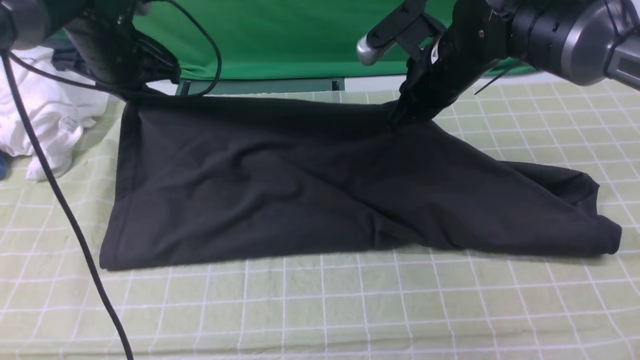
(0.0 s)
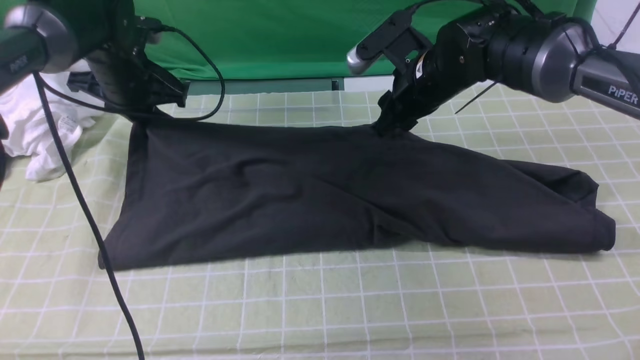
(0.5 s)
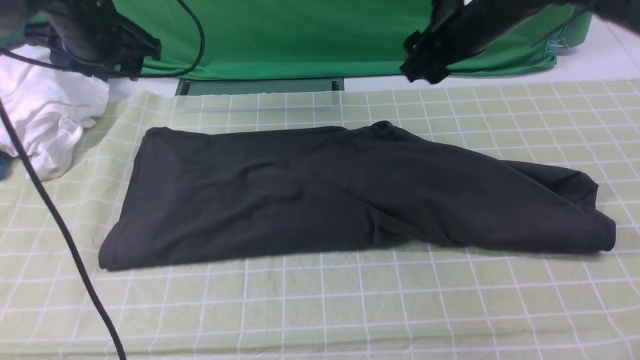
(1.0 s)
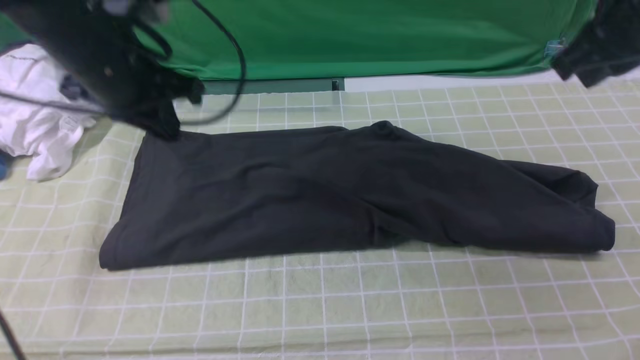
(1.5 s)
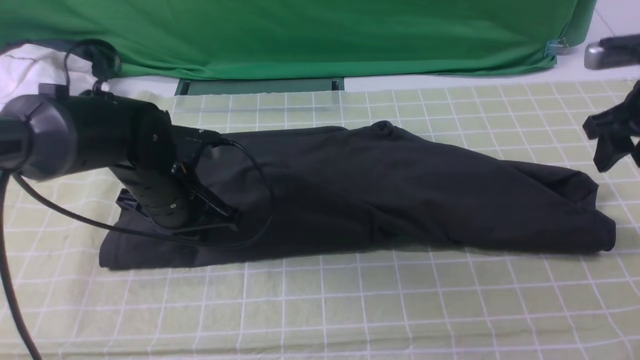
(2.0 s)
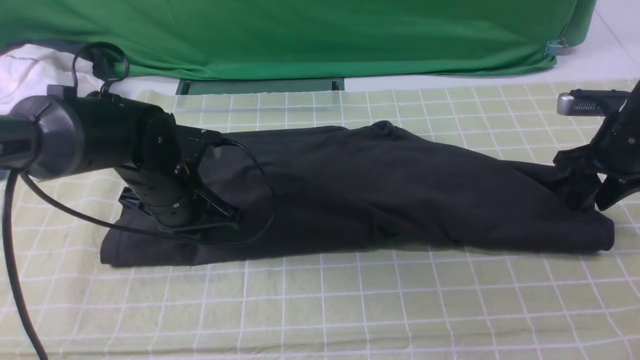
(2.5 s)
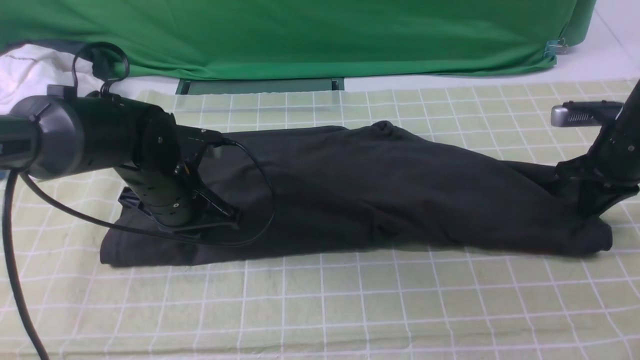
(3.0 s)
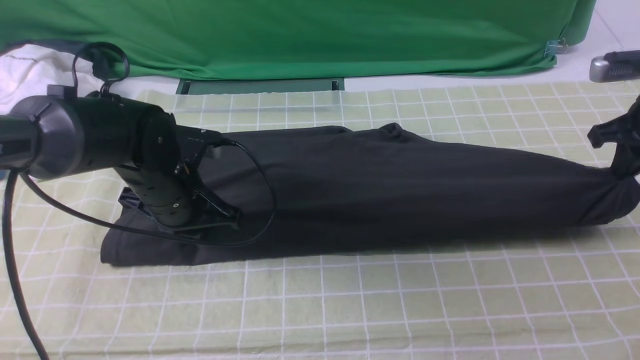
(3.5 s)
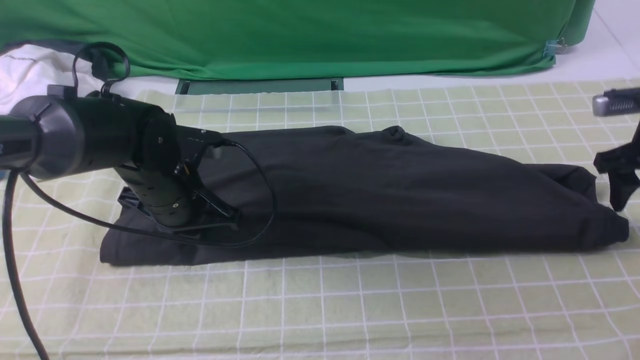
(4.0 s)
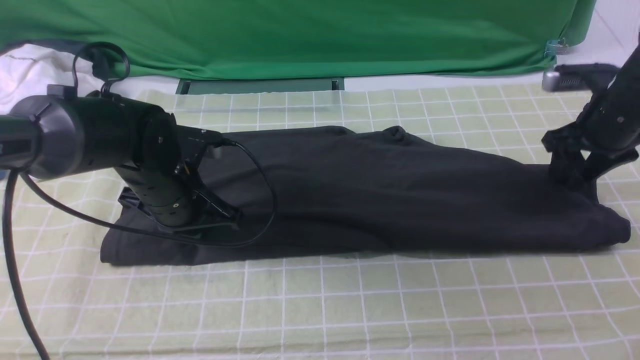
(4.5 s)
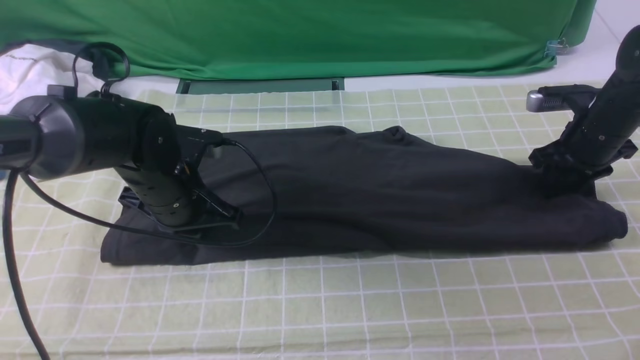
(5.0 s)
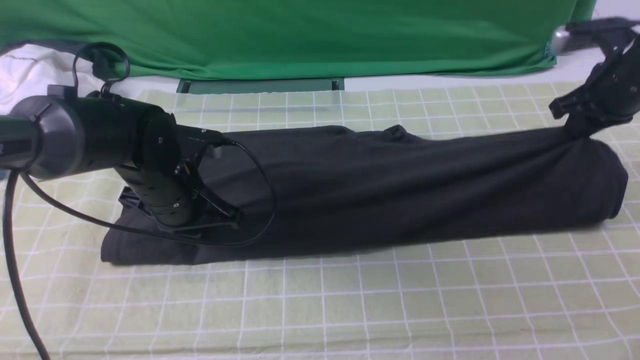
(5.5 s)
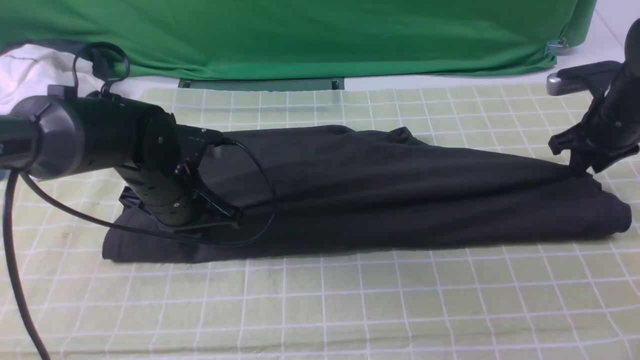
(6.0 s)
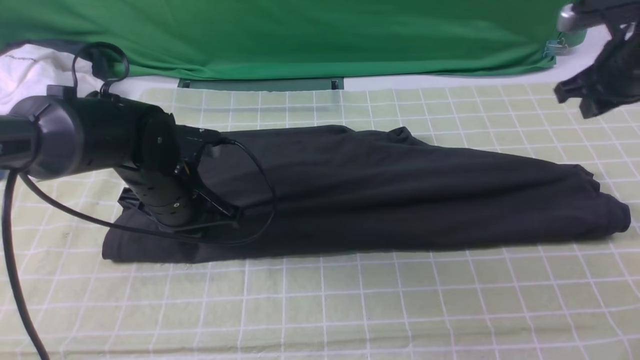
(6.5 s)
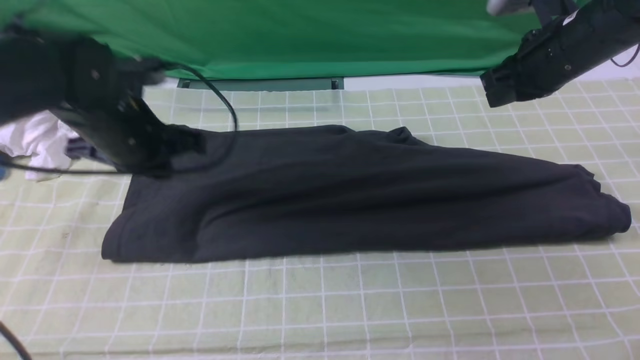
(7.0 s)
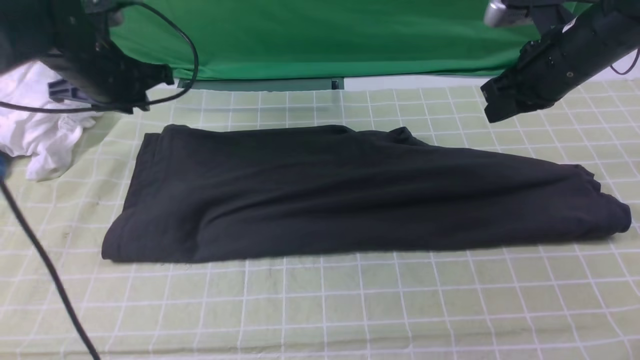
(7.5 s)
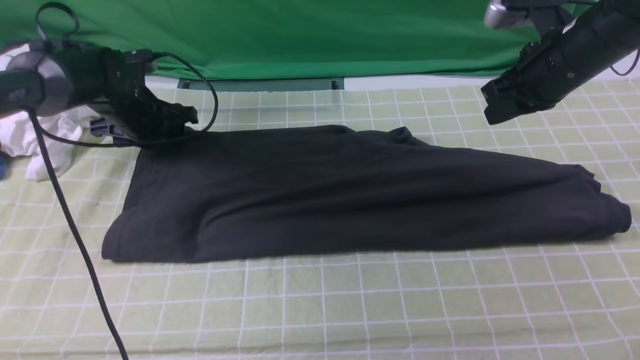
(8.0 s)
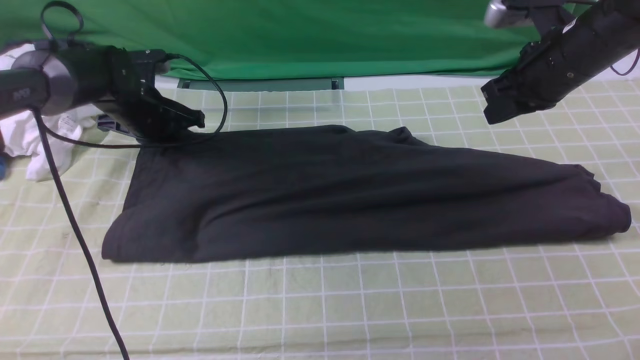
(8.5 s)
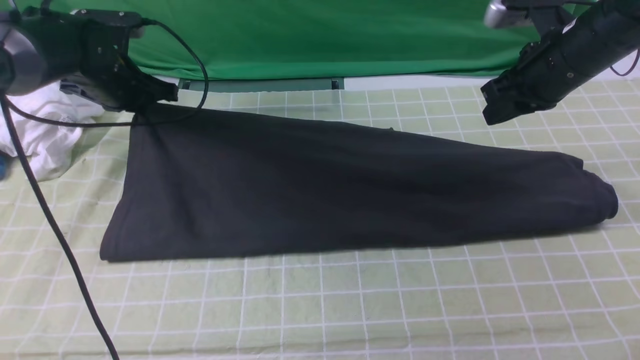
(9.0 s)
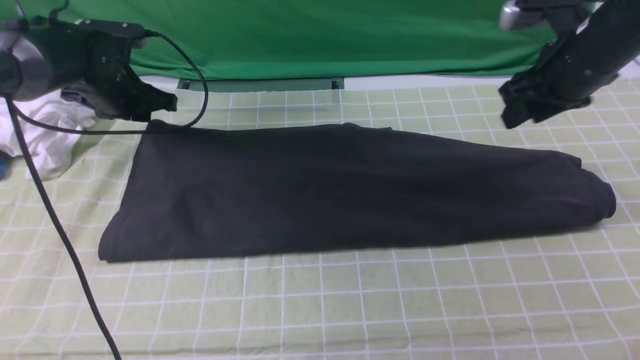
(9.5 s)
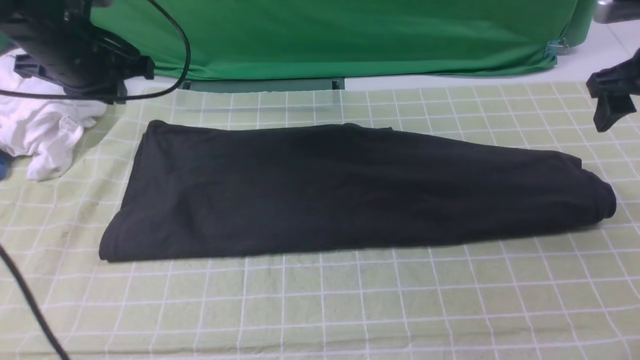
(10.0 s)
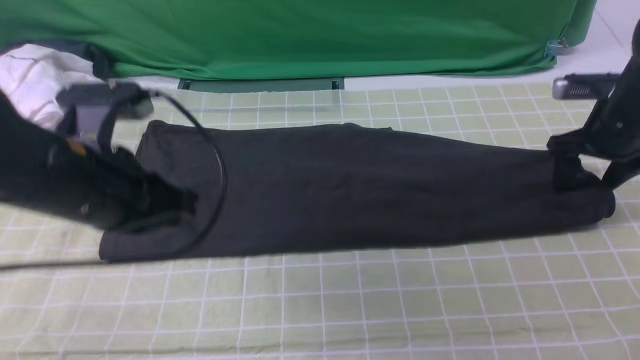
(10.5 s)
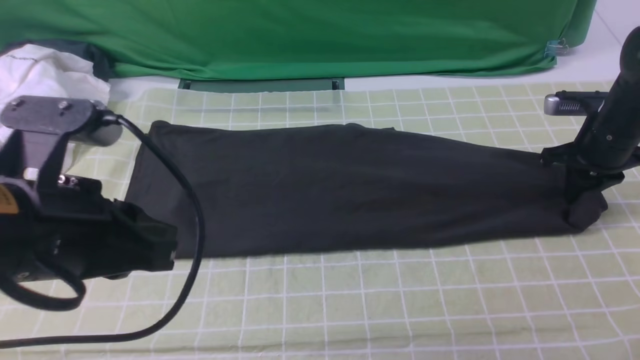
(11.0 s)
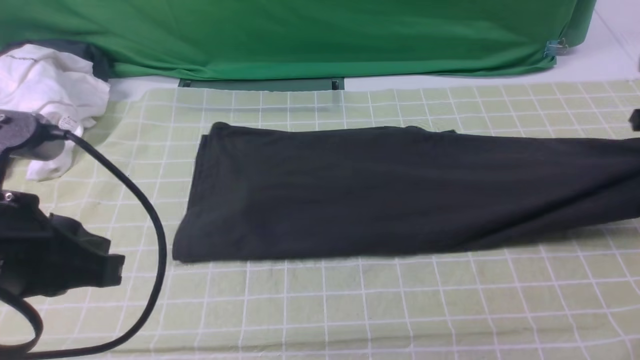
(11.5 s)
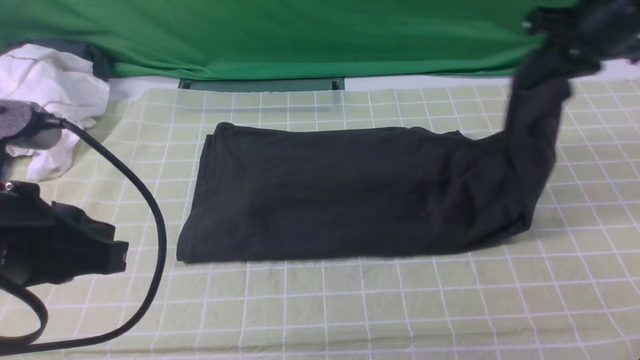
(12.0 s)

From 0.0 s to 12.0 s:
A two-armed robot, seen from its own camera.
Step, from 1.0 s to 11.0 s: use the right arm to clamp the right edge of the fabric.
From 0.0 s to 2.0 s: The left gripper moves backward, downward and to the right, approximately 15 cm, and opens, then closes again; the right gripper travels to the right by some 20 cm, and opens.
From 2.0 s to 4.0 s: The right gripper closes and opens again.
From 4.0 s to 6.0 s: The right gripper closes.
From 6.0 s to 8.0 s: The right gripper heads to the left and upward, covering about 10 cm, and closes up, while the left gripper heads forward and to the left, covering roughly 15 cm, and opens up.
From 8.0 s to 10.0 s: The left gripper goes about 15 cm upward and backward, and closes its fingers. The right gripper moves to the right, roughly 10 cm, and opens its fingers.
From 10.0 s to 12.0 s: The right gripper heads to the left, covering approximately 10 cm, goes downward and returns, some 10 cm each way, and closes up. The left gripper moves backward, approximately 25 cm.

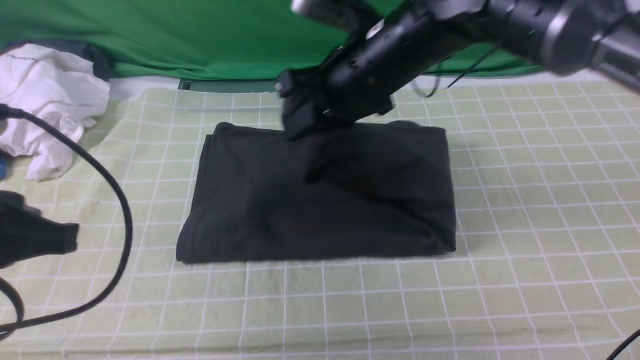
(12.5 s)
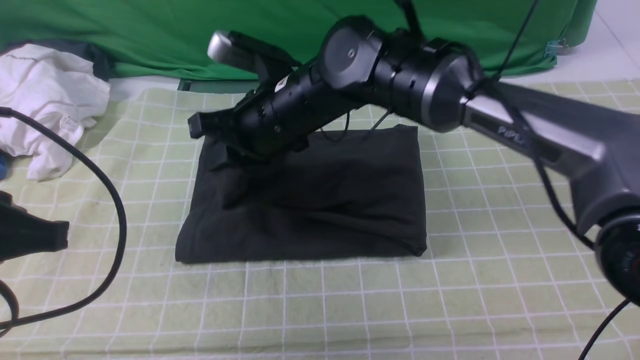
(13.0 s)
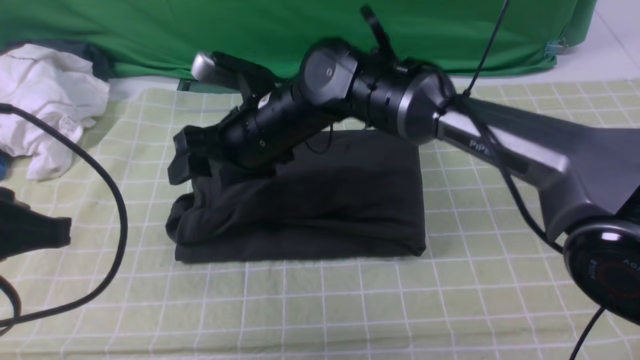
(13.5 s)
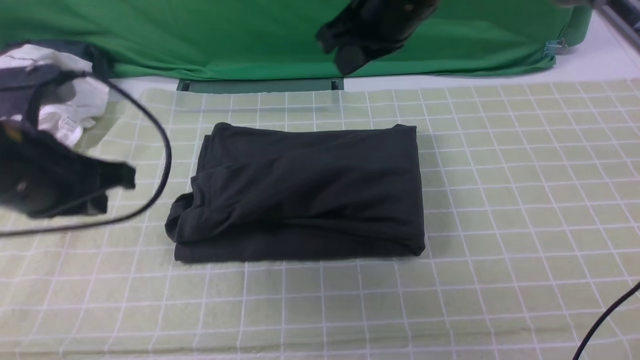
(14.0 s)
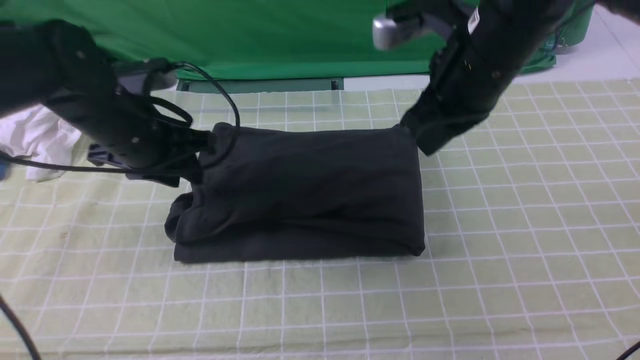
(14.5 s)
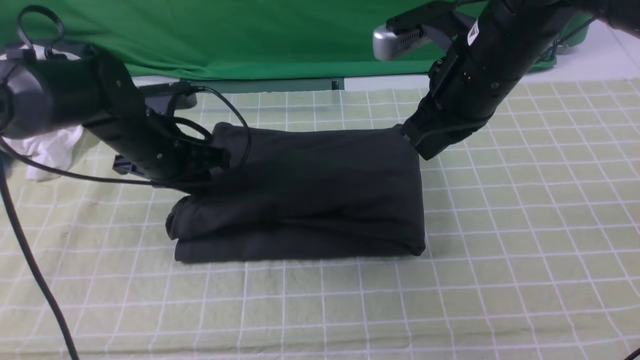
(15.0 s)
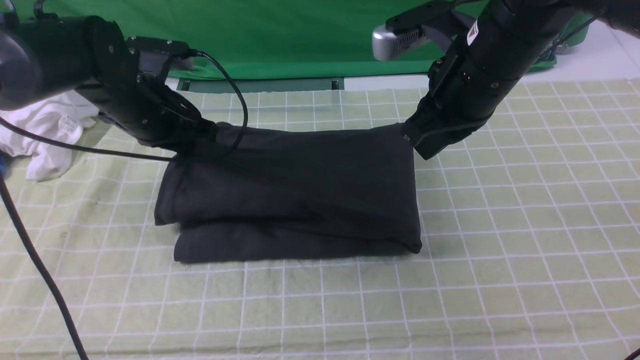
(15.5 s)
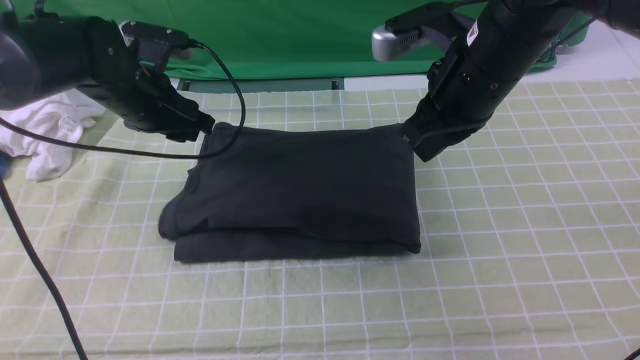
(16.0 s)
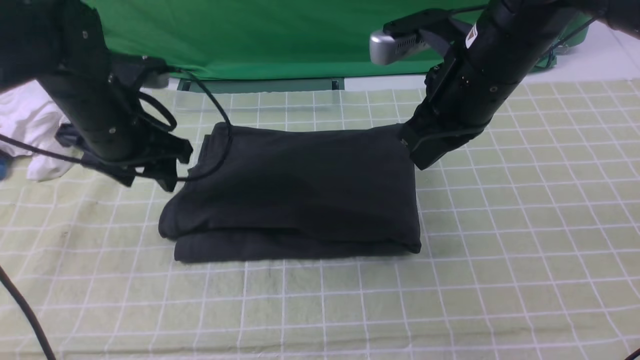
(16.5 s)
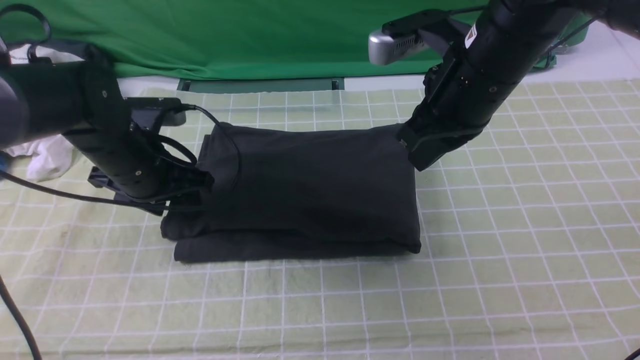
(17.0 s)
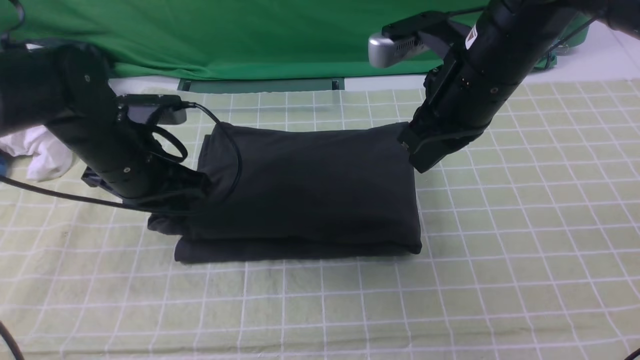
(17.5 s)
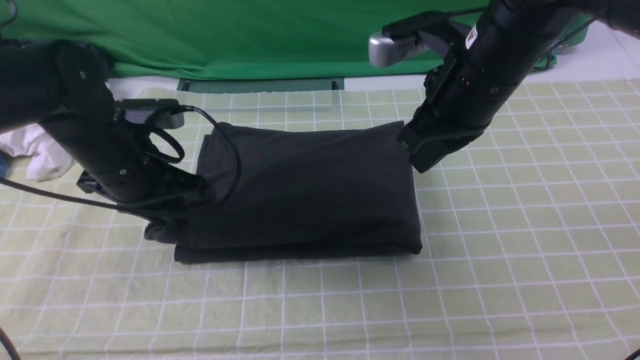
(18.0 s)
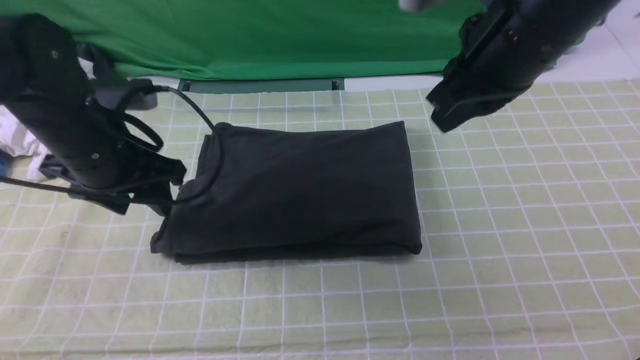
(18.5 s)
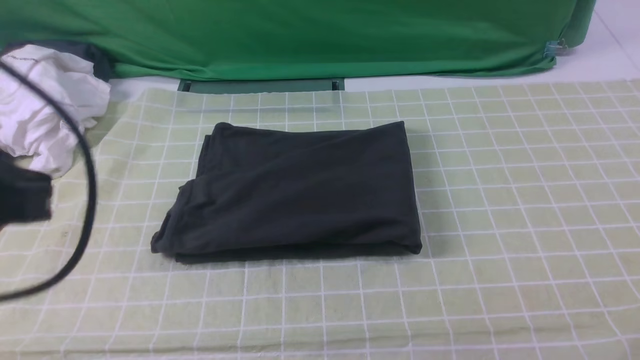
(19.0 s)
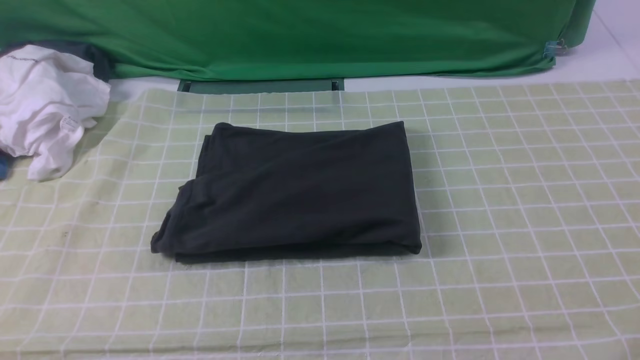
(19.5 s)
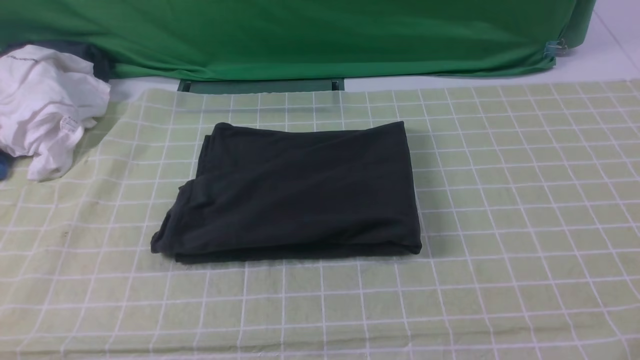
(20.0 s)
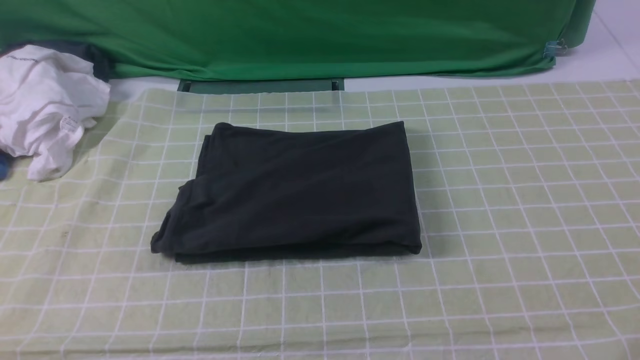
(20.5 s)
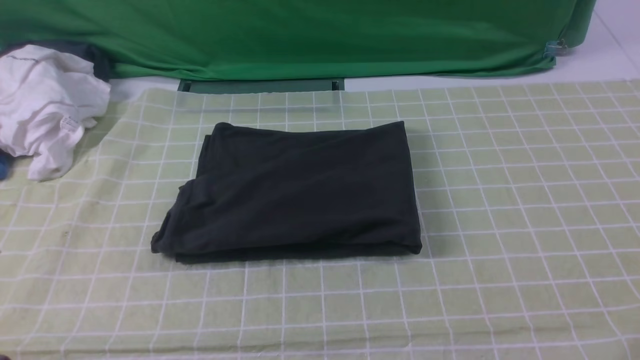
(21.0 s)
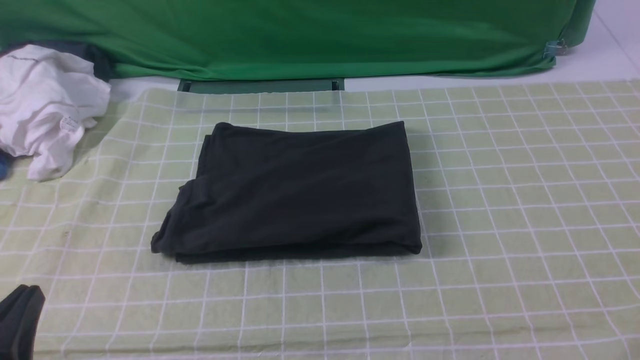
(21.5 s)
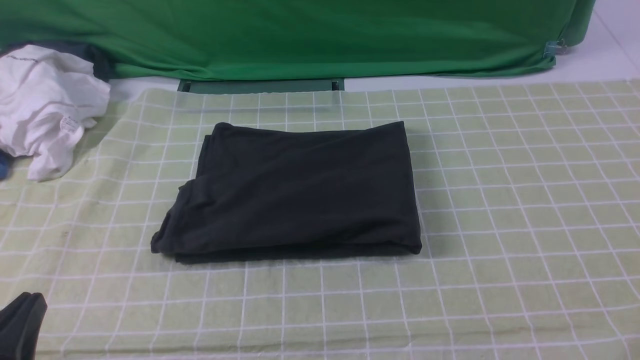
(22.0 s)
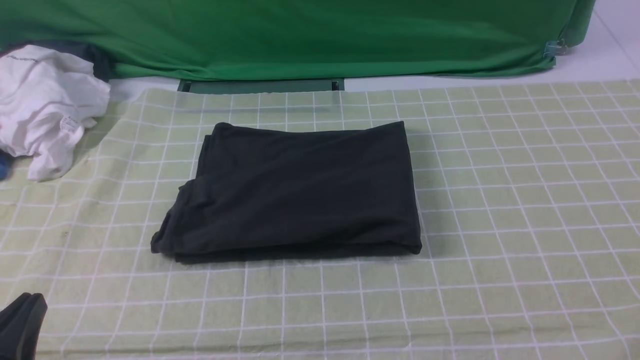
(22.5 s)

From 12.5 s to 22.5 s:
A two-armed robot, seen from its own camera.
Step, from 12.5 s to 18.0 s: use the right arm to drag the right edge of the fabric to the left and folds it over the left edge.
From 12.5 s to 14.5 s: The right gripper goes some 10 cm to the right, and opens, then closes once more. The left gripper heads forward and downward, covering approximately 25 cm, and opens up.
From 14.5 s to 16.5 s: The left gripper closes, then reopens.
From 16.5 s to 18.5 s: The right gripper shifts about 10 cm upward; the left gripper is displaced backward by approximately 5 cm, and closes and opens again.
From 18.5 s to 20.5 s: The left gripper goes about 30 cm backward, and closes up, while the right gripper shifts some 35 cm backward and to the right.
From 20.5 s to 22.5 s: The left gripper goes some 10 cm downward.
